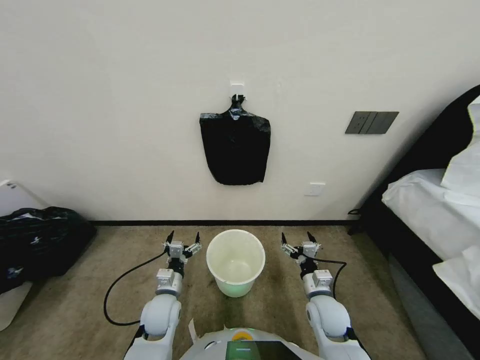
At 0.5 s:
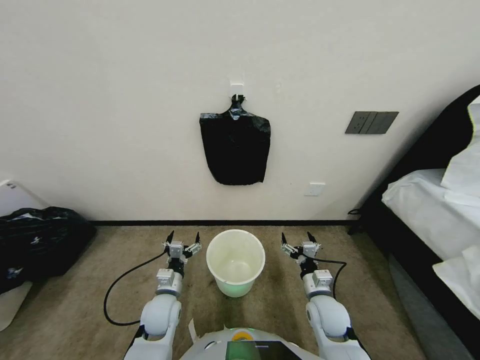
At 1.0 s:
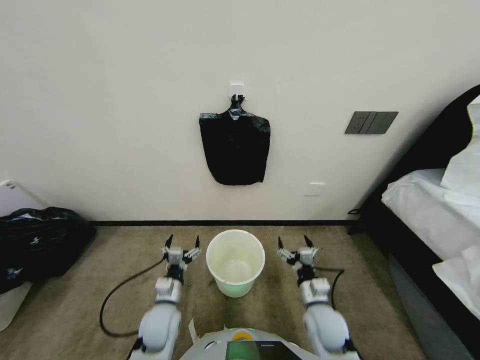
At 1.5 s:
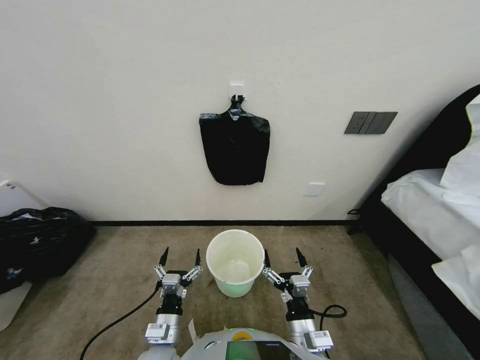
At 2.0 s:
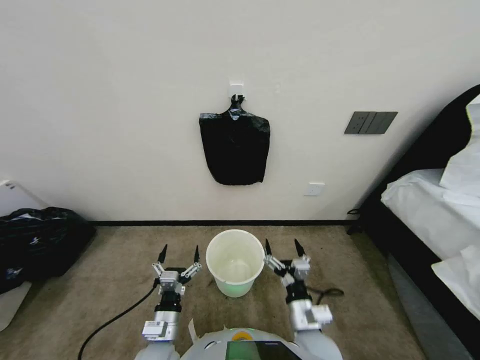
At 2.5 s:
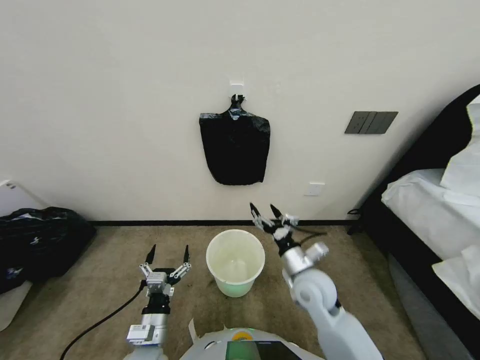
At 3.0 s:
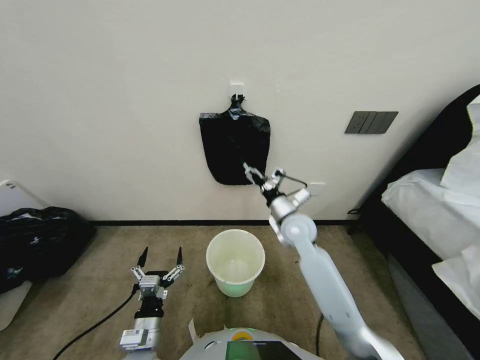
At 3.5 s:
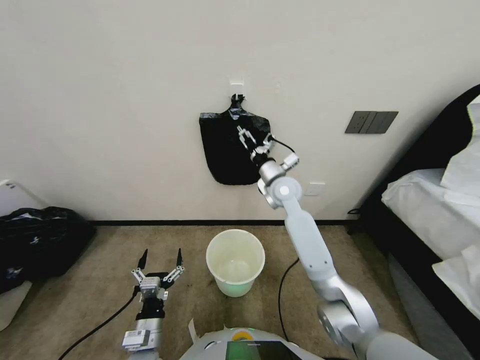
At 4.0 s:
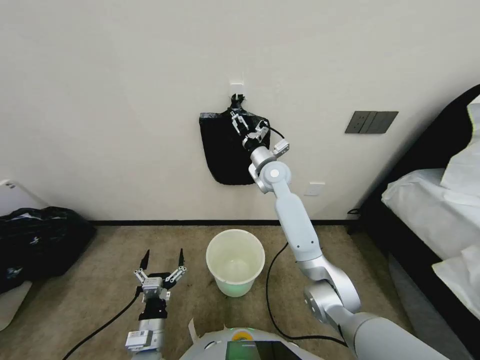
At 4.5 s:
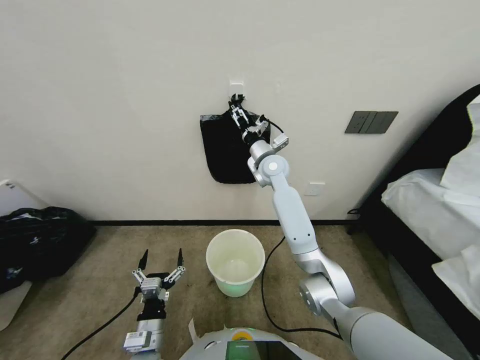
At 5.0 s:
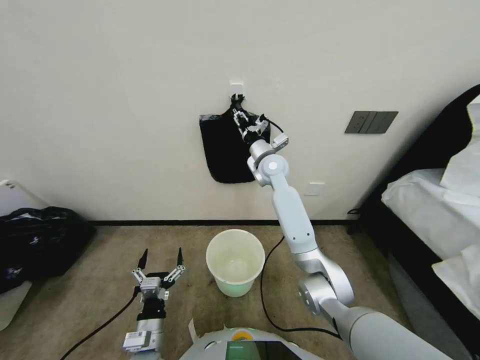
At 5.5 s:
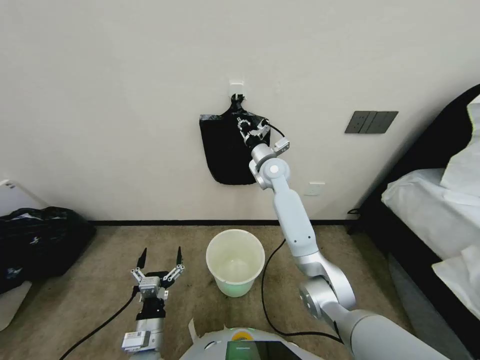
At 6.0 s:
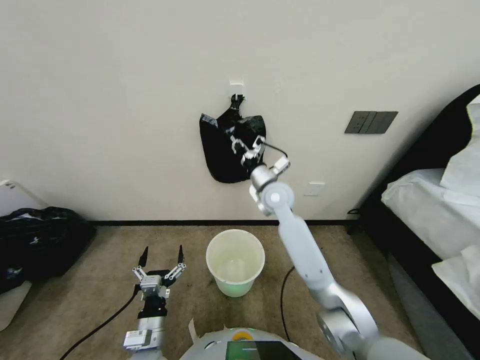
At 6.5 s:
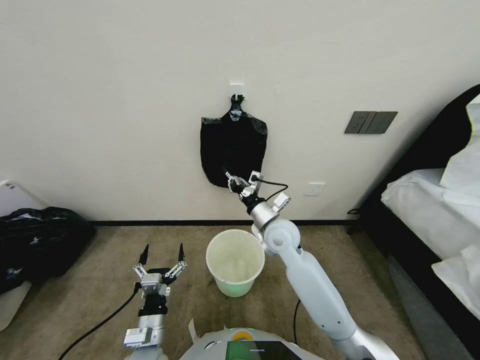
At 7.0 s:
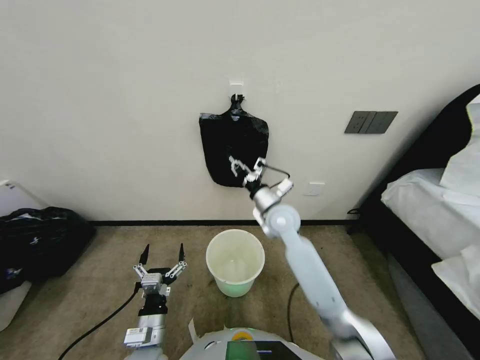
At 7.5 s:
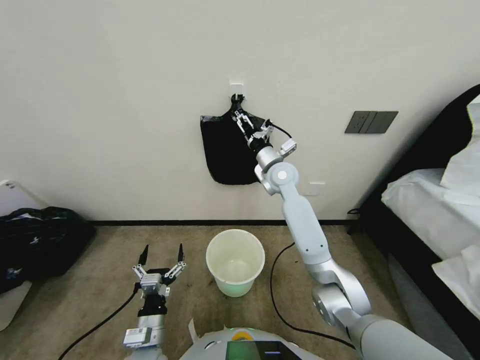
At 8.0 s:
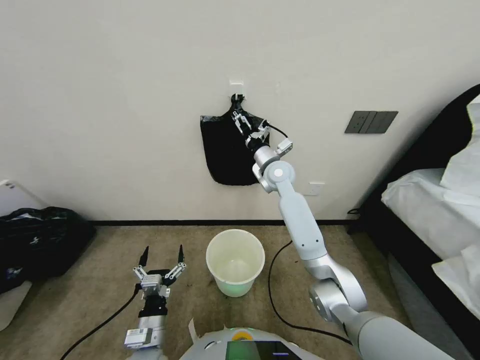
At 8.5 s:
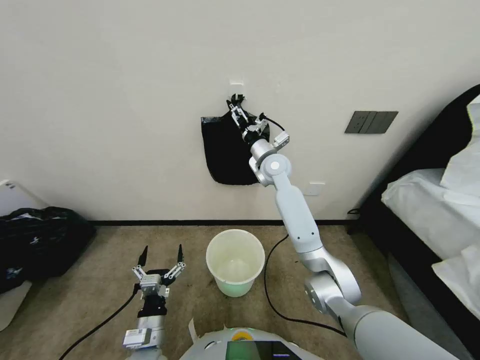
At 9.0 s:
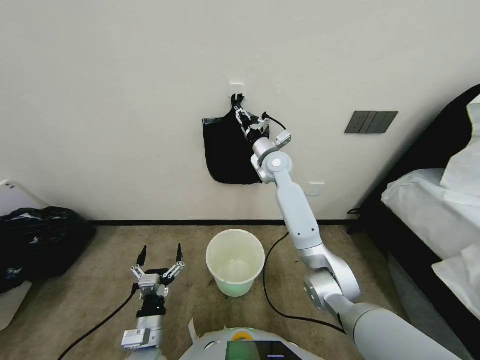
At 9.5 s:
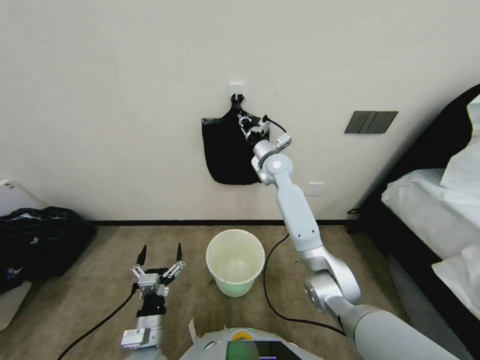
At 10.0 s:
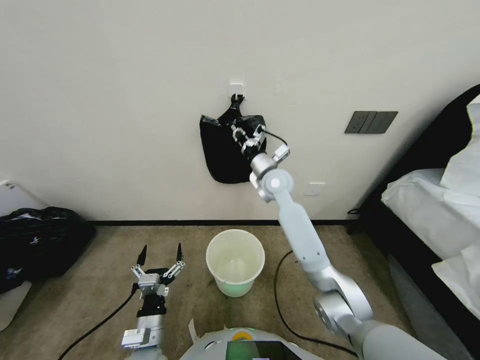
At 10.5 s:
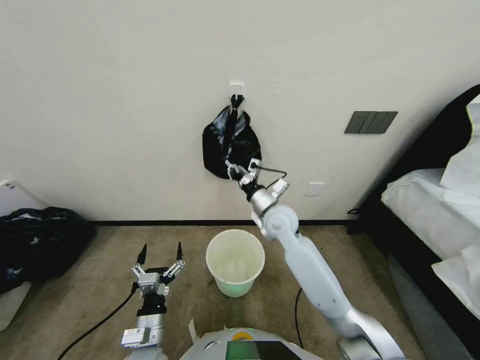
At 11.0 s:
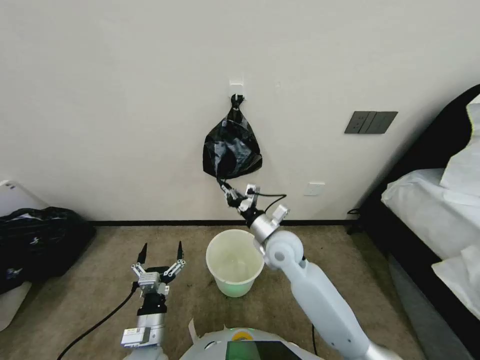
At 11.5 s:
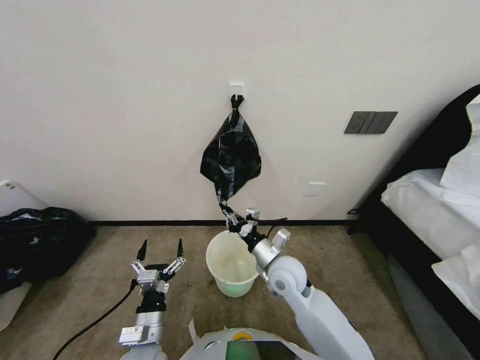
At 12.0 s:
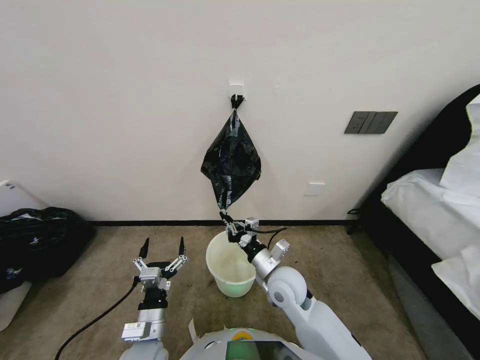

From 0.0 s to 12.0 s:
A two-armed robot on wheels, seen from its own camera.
Task of the whole recording: Place a trash bag onto the trash bin.
From 2.0 s to 4.0 s: The right gripper moves forward and upward, approximately 40 cm.
From 4.0 s to 6.0 s: The right gripper closes up.
From 6.0 s to 8.0 s: The right gripper goes backward and returns, roughly 10 cm each way, and opens its fingers.
From 8.0 s to 10.0 s: The right gripper closes up.
From 10.0 s to 12.0 s: The right gripper goes about 30 cm backward and downward.

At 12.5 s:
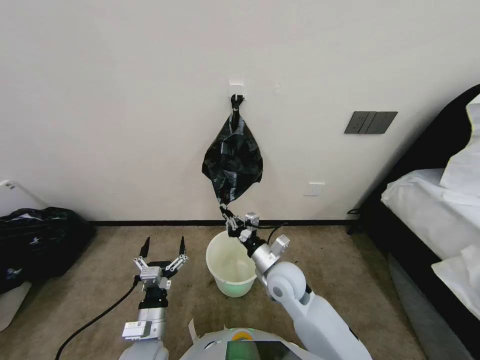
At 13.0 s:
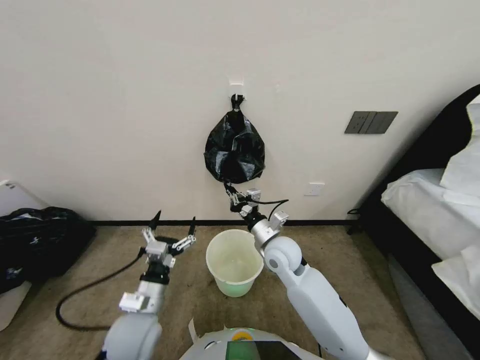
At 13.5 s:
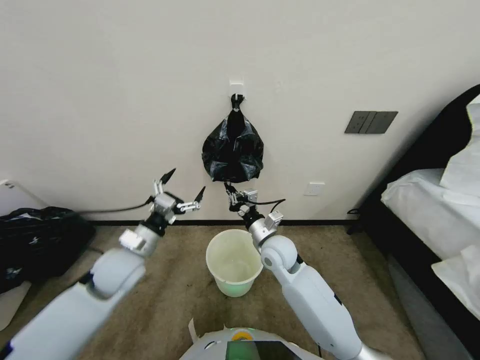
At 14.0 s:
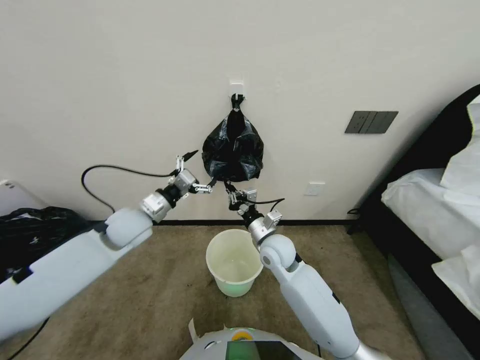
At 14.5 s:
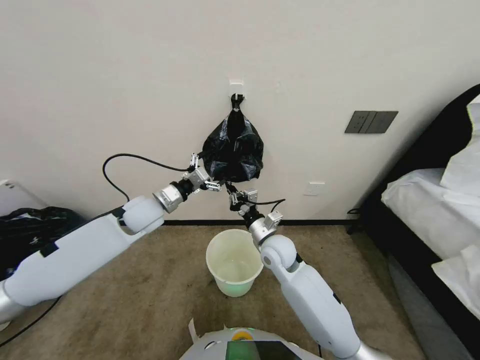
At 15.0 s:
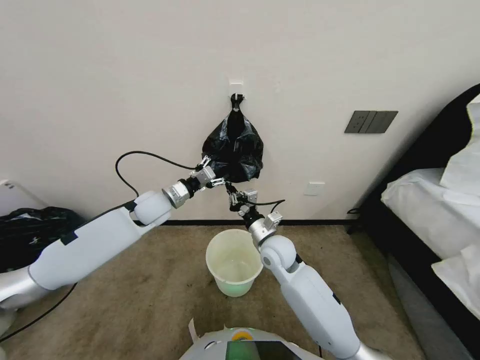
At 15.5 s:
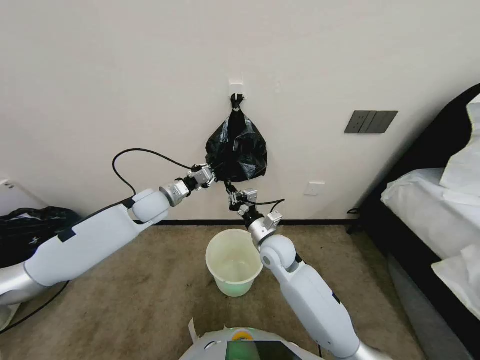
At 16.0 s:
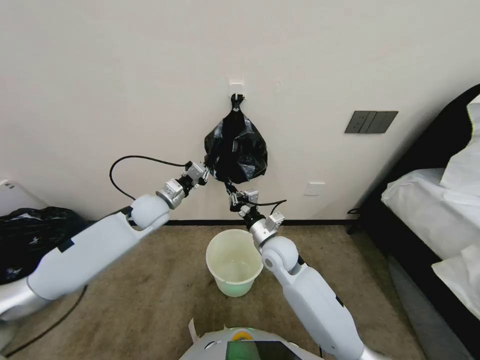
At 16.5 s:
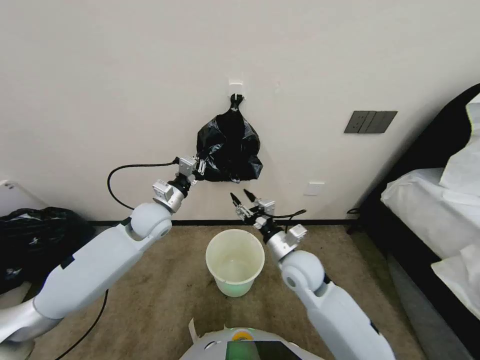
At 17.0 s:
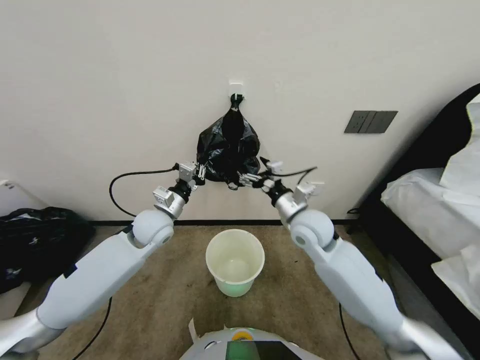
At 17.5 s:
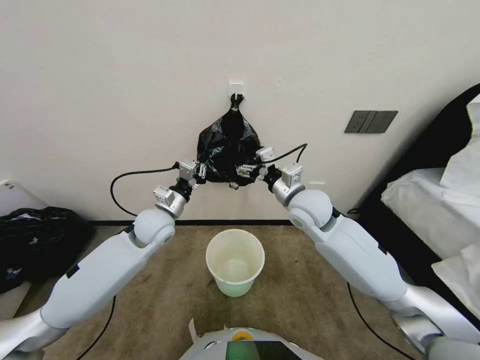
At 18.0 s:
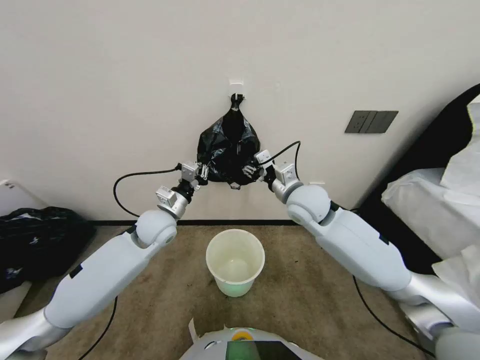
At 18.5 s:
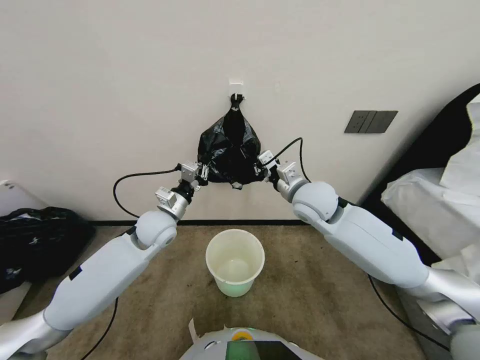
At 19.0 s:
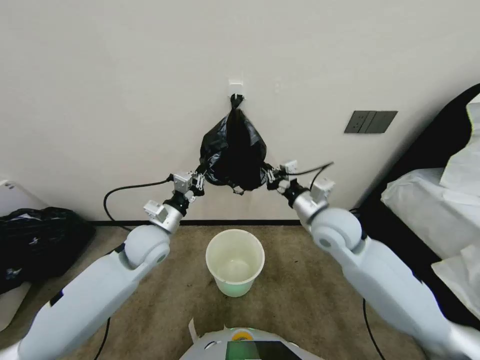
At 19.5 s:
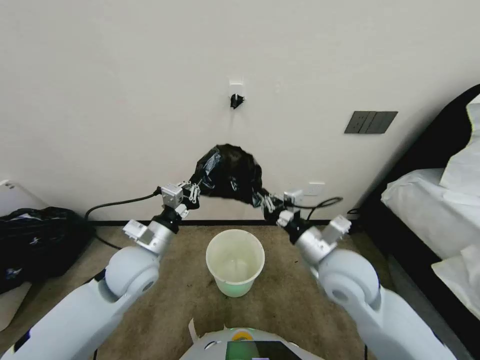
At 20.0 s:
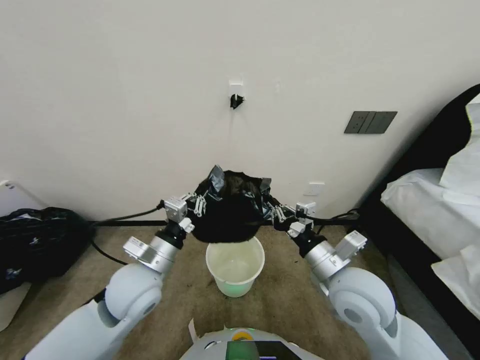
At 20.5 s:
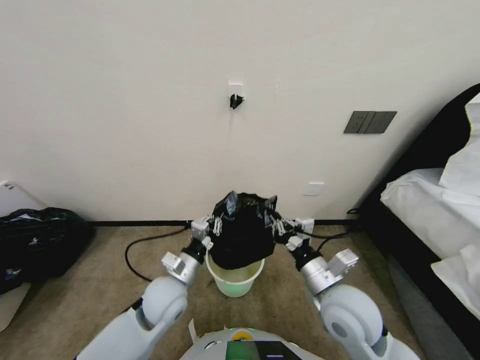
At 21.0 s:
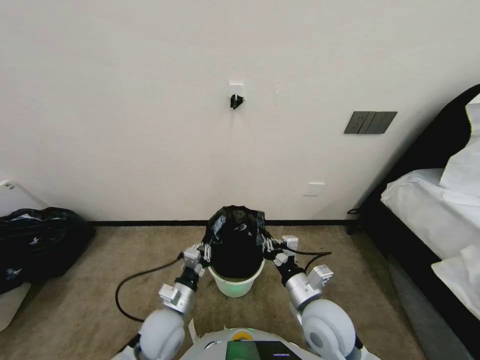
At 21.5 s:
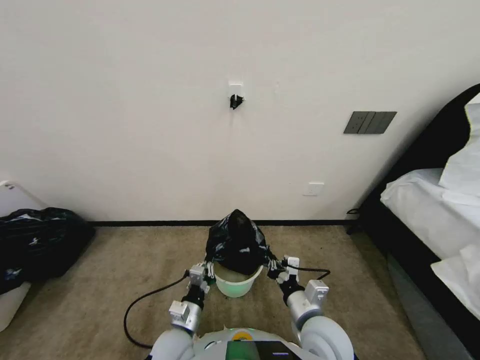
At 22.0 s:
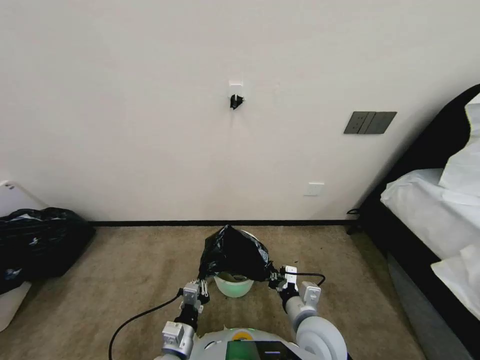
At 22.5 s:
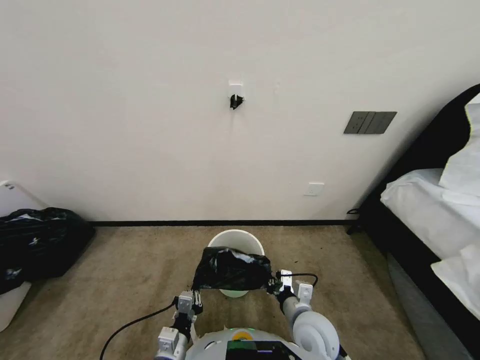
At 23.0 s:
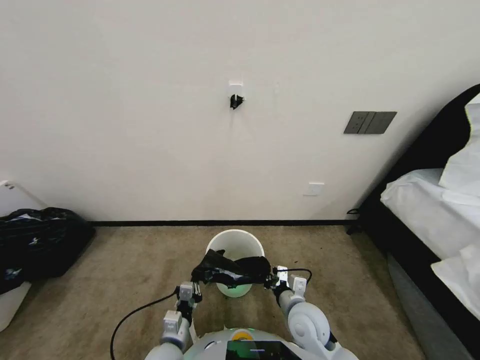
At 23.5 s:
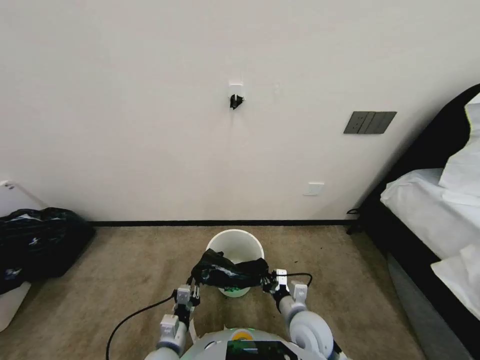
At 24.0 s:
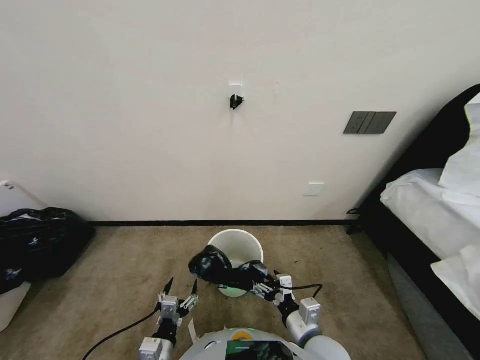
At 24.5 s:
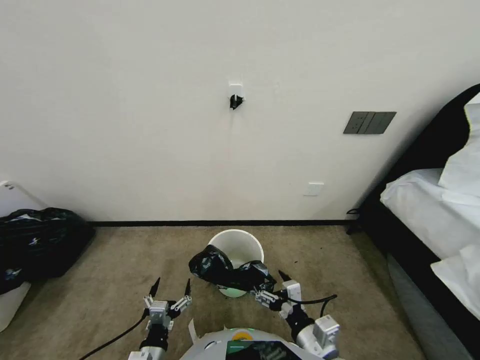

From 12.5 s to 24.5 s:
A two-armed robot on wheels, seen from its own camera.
Task of the whole recording: Place a trash bag onto the trash bin.
From 12.5 s to 14.5 s: The right gripper is displaced forward by approximately 10 cm. The left gripper heads forward and upward, covering approximately 35 cm.
From 14.5 s to 16.5 s: The right gripper changes place by about 5 cm, and opens its fingers; the left gripper closes up.
From 16.5 s to 18.5 s: The right gripper moves upward and forward, approximately 15 cm, and opens, then closes once more.
From 18.5 s to 20.5 s: Both grippers move backward and downward, roughly 20 cm.
From 20.5 s to 22.5 s: The right gripper travels downward by some 15 cm. The left gripper moves backward and downward, some 20 cm.
From 22.5 s to 24.5 s: The right gripper is displaced backward by some 10 cm, and opens up. Meanwhile the left gripper ends up about 5 cm from where it was, and opens.

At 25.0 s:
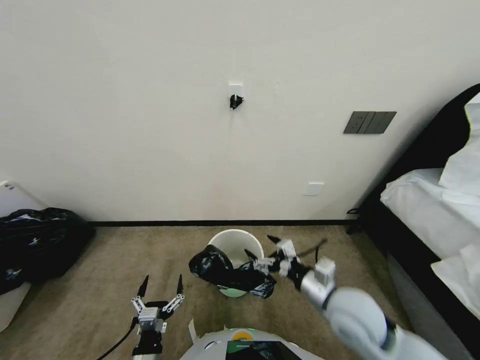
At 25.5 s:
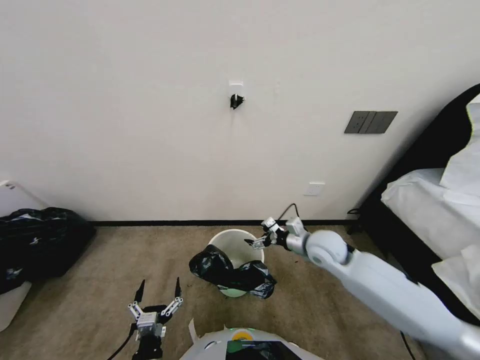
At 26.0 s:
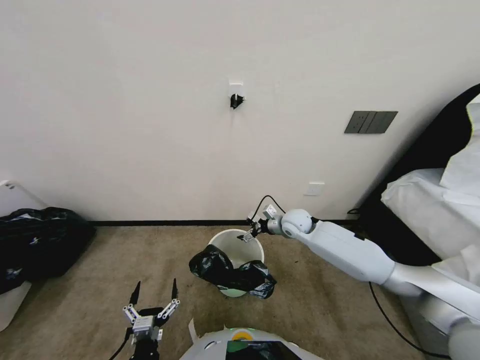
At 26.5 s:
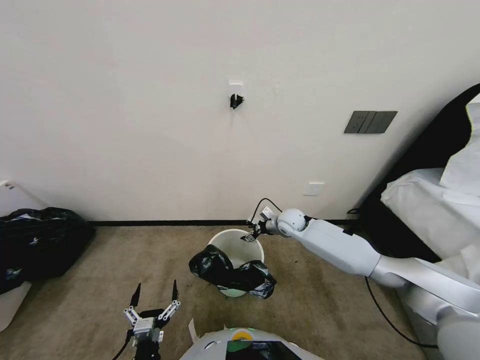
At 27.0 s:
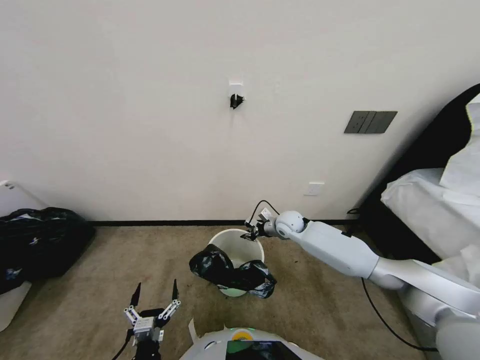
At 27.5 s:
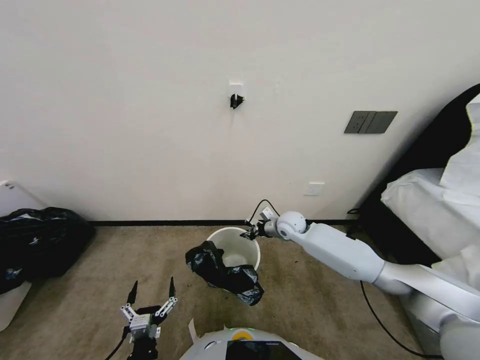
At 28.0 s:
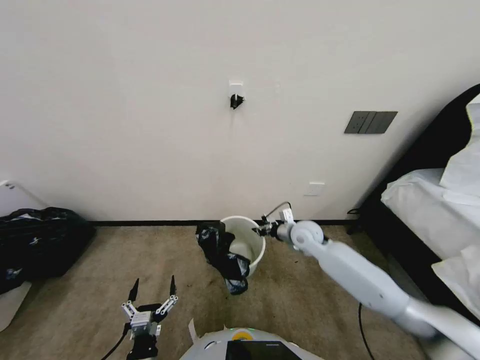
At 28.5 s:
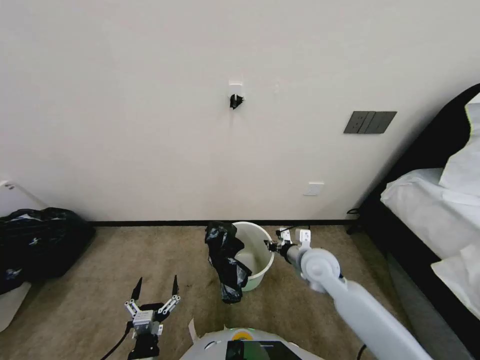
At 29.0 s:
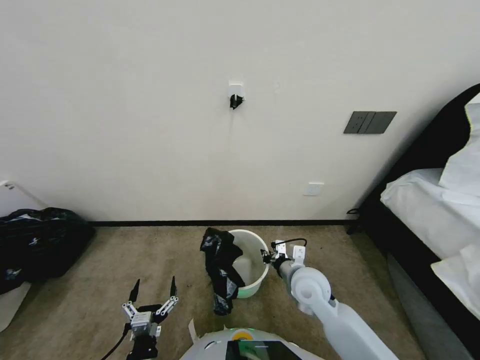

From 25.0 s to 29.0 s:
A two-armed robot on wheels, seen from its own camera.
Task of the whole recording: Place a trash bag onto the trash bin.
From 25.0 s to 27.0 s: The right gripper is displaced forward by approximately 30 cm, and closes up.
From 27.0 s to 29.0 s: The right gripper is displaced backward by approximately 20 cm.
